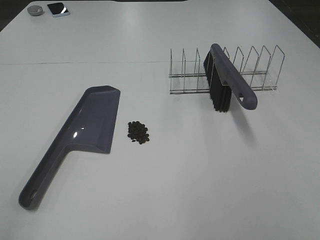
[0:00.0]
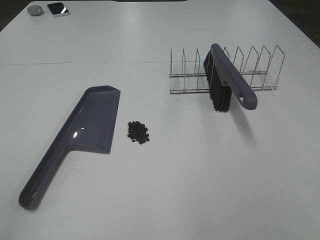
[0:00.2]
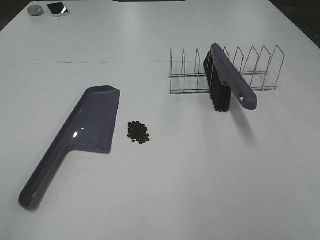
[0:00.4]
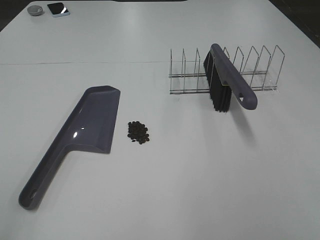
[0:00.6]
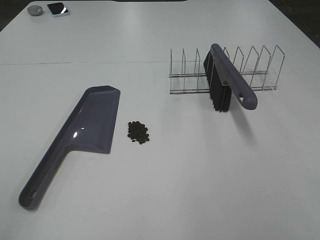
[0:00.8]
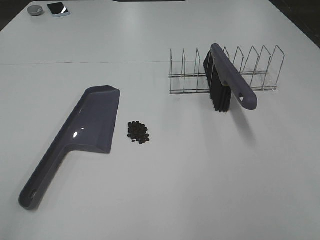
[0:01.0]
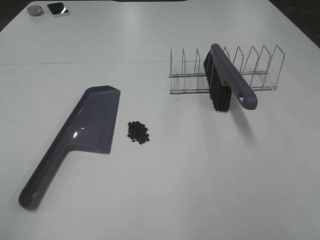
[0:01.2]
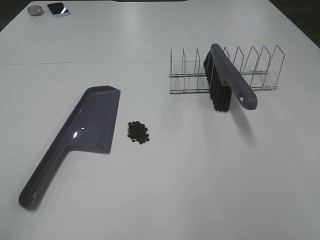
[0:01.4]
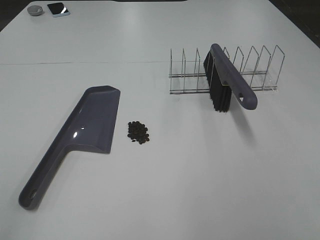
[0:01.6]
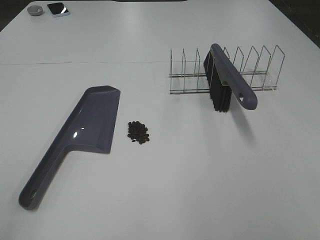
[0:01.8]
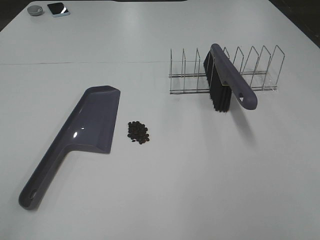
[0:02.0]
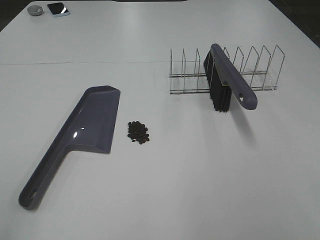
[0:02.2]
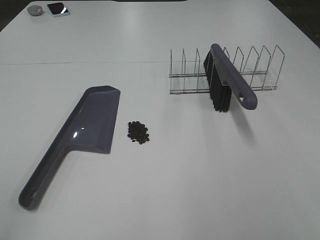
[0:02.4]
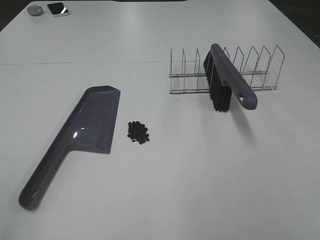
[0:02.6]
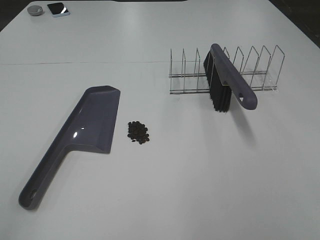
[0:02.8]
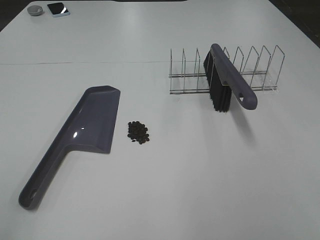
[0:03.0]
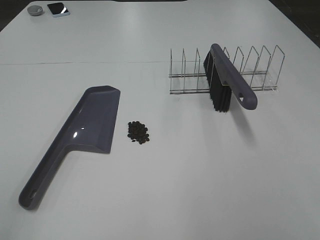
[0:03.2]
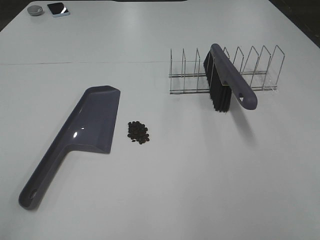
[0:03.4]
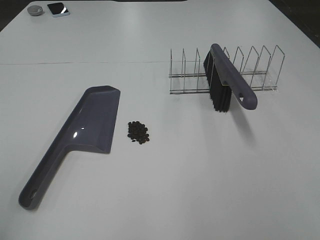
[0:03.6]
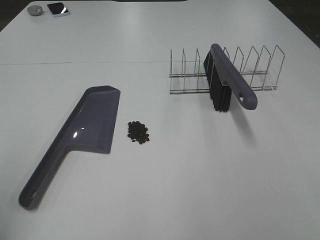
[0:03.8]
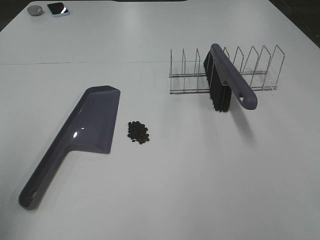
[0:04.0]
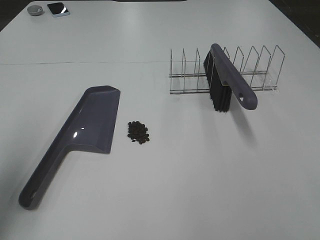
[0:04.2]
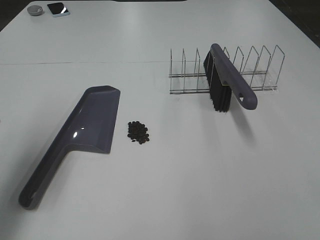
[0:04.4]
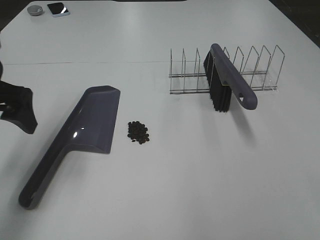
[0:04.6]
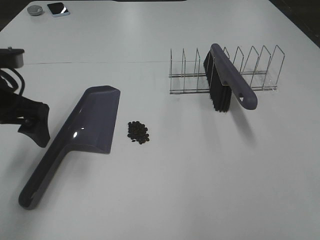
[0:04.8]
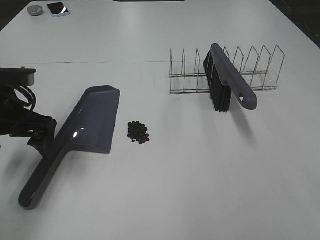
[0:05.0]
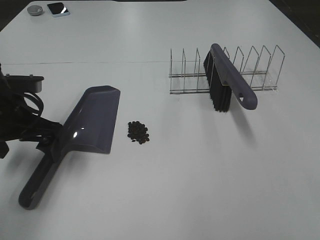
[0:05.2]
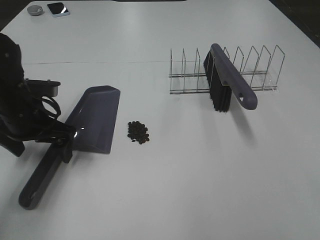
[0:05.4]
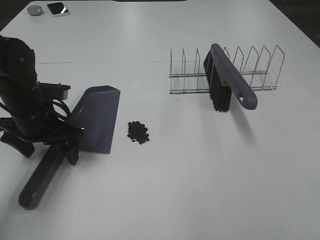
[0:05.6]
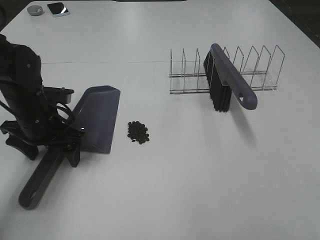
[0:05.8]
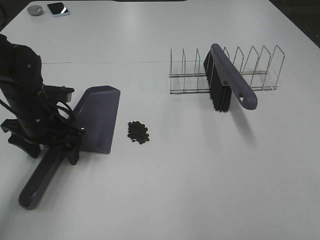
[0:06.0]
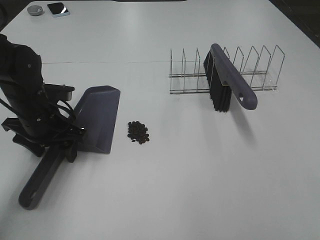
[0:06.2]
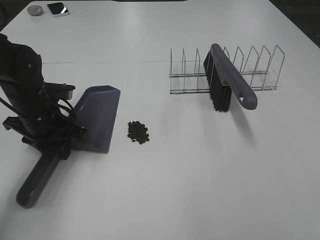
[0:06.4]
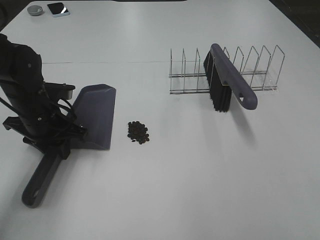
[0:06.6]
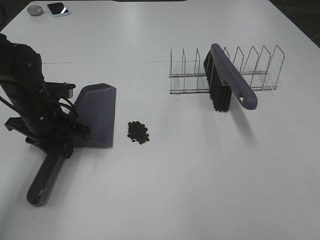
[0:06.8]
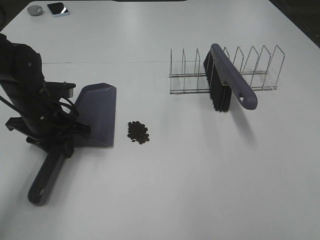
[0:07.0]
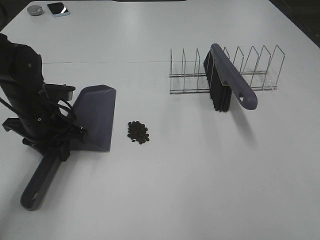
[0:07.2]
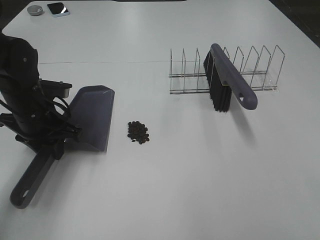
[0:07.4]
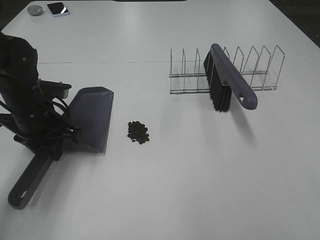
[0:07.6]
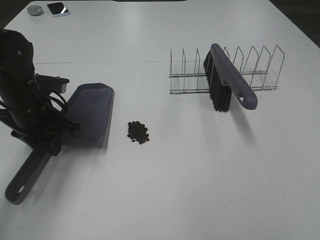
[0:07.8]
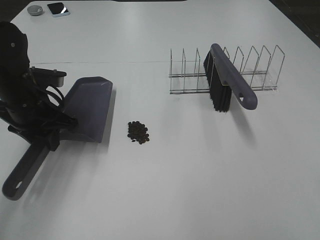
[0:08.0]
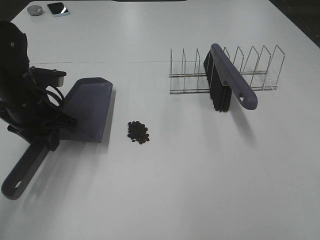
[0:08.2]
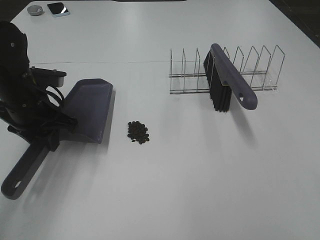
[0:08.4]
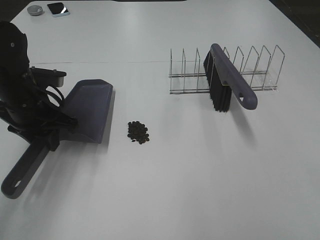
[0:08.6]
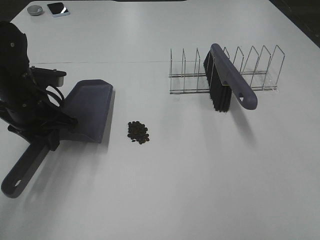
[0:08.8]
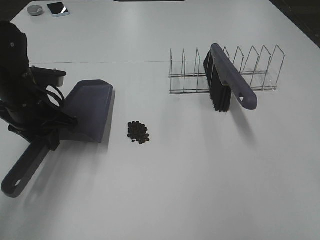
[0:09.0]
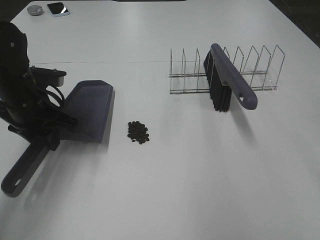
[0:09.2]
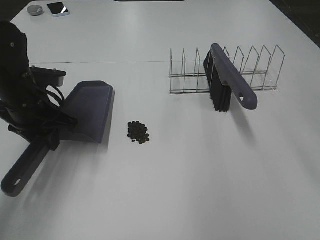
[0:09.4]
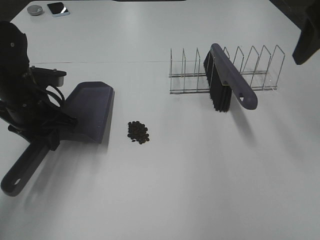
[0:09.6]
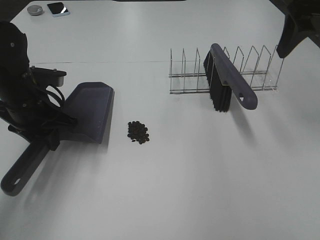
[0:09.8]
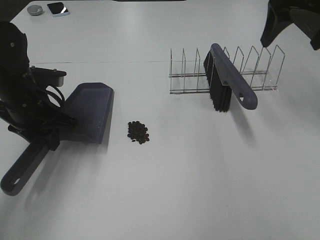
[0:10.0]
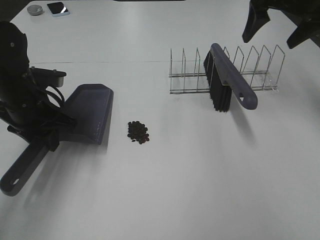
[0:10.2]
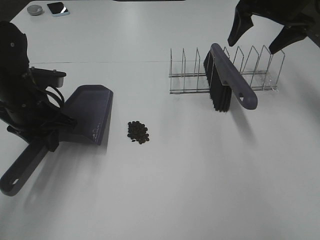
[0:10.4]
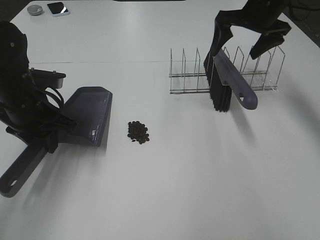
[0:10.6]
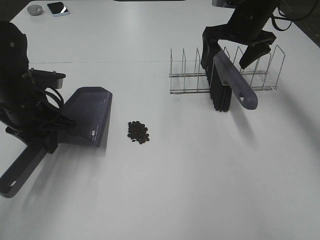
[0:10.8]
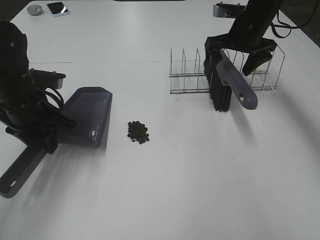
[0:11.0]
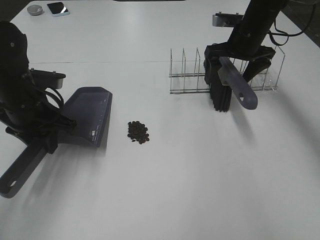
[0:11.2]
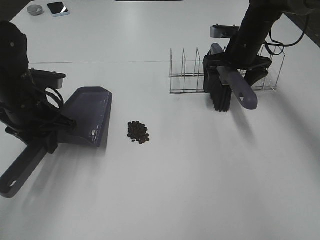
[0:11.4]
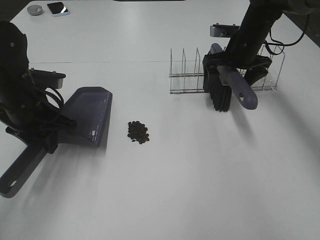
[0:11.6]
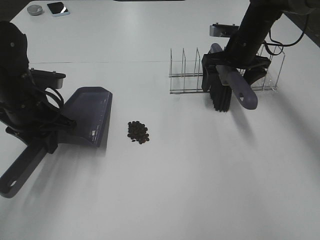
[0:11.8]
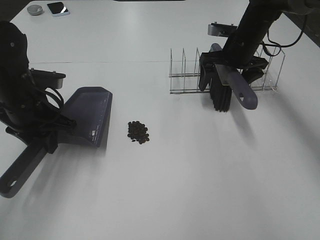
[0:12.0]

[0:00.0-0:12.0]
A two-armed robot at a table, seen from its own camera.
Task of the whole recording: Sweep Coffee Bean.
Step, 0:00.0 to 0:06.8: Left hand: grab the dustpan.
0:00.0 to 0:03.0: Neither gripper changes place.
0:03.0 to 0:04.4: The left gripper shifts about 25 cm forward.
0:04.4 to 0:06.0: The left gripper goes approximately 20 cm downward, forward and to the right.
0:06.0 to 0:07.6: The left gripper closes up.
0:09.0 to 0:10.4: The right gripper shifts approximately 35 cm forward.
0:10.4 to 0:12.0: The right gripper is displaced downward by approximately 10 cm.

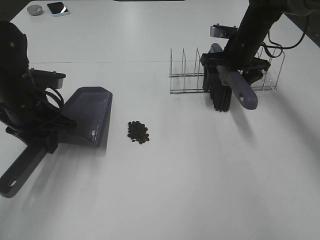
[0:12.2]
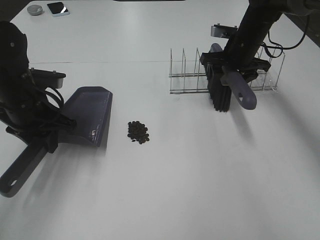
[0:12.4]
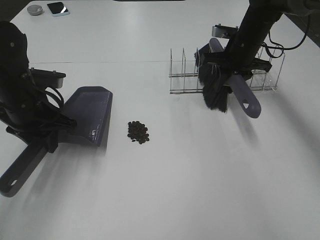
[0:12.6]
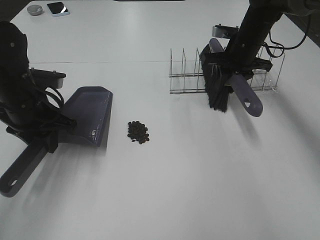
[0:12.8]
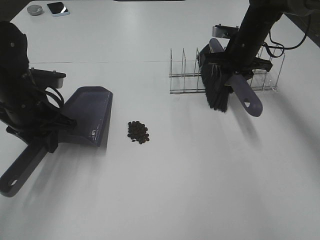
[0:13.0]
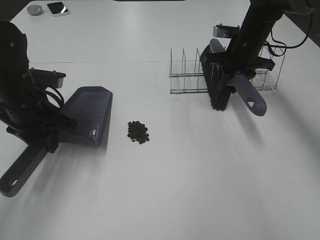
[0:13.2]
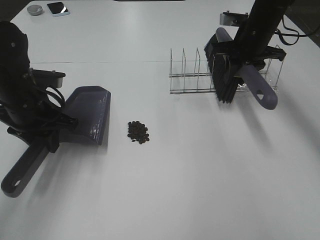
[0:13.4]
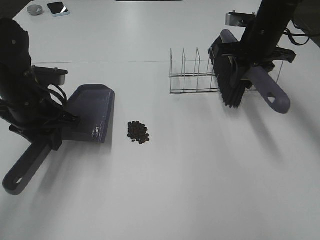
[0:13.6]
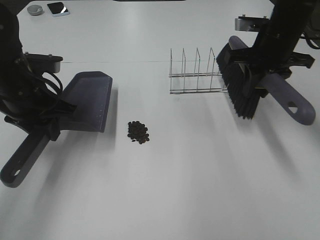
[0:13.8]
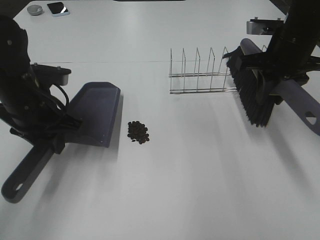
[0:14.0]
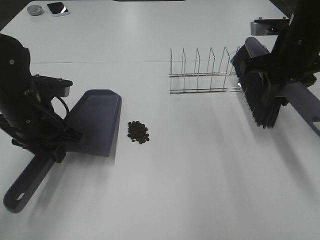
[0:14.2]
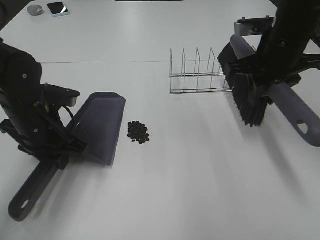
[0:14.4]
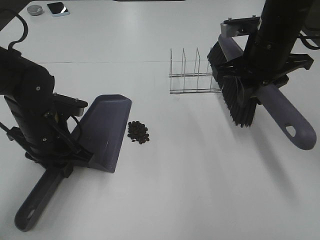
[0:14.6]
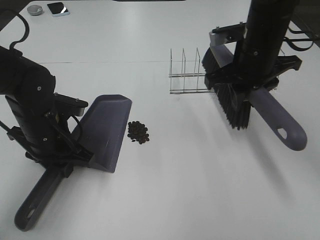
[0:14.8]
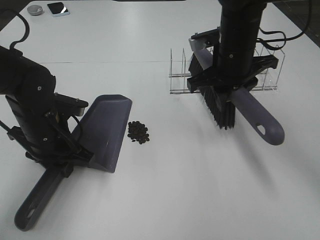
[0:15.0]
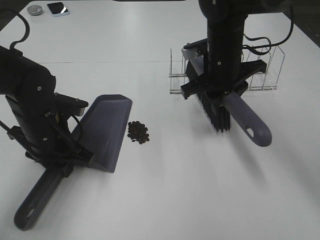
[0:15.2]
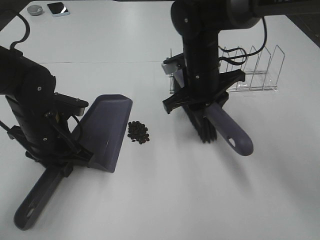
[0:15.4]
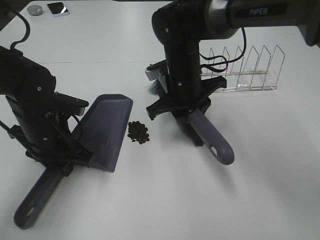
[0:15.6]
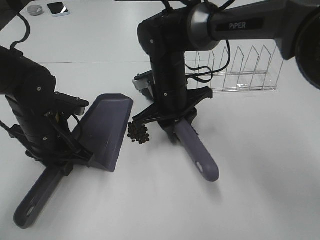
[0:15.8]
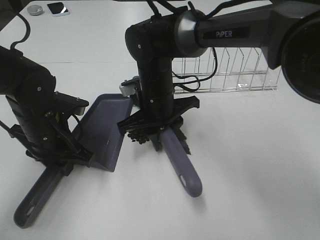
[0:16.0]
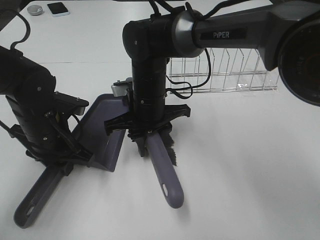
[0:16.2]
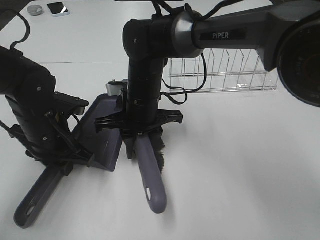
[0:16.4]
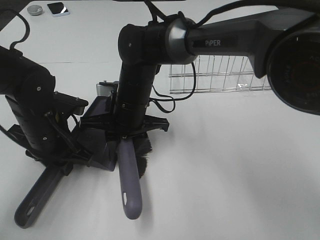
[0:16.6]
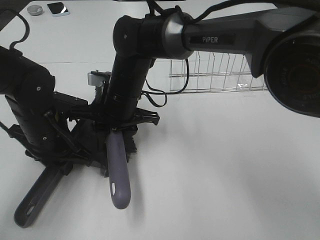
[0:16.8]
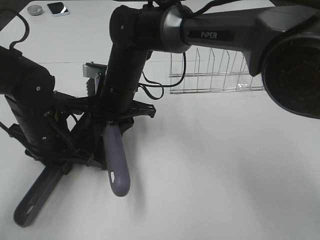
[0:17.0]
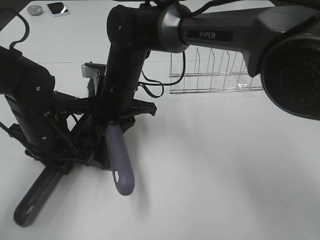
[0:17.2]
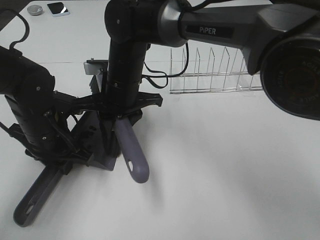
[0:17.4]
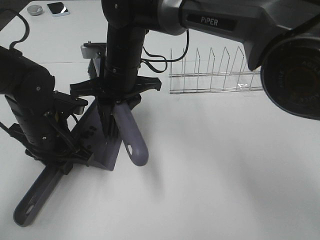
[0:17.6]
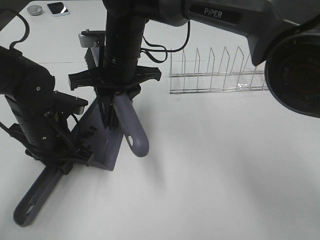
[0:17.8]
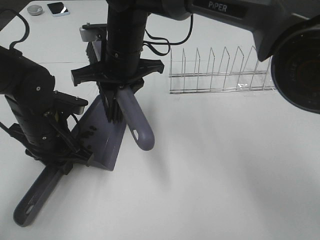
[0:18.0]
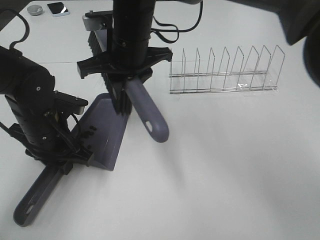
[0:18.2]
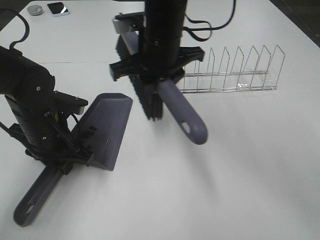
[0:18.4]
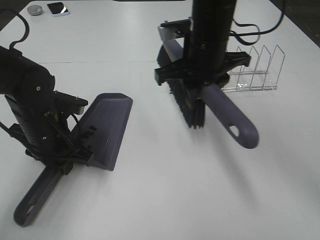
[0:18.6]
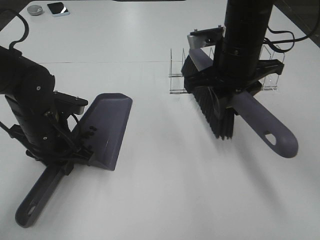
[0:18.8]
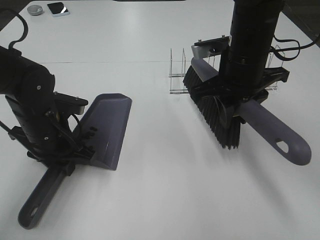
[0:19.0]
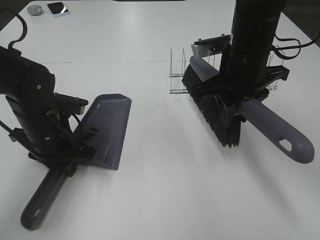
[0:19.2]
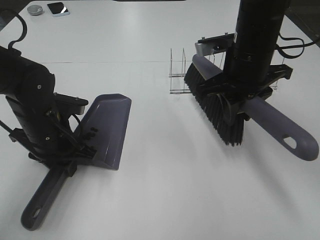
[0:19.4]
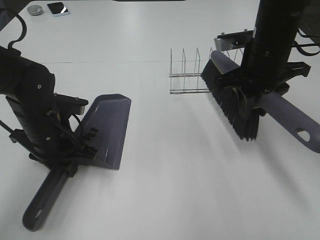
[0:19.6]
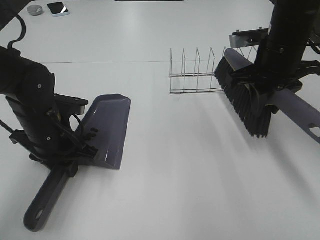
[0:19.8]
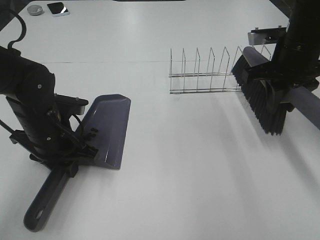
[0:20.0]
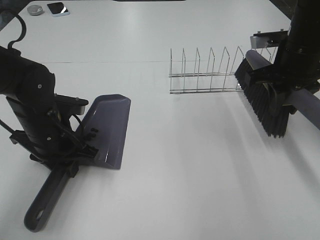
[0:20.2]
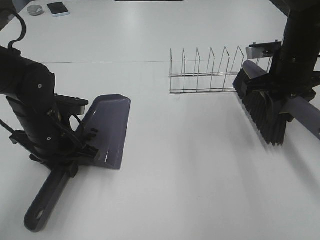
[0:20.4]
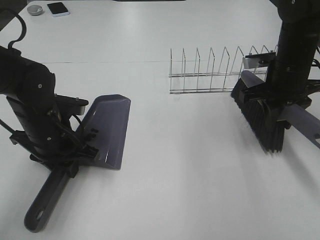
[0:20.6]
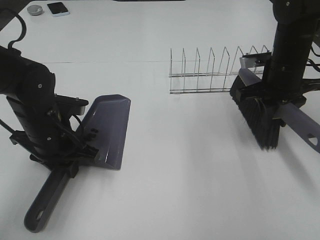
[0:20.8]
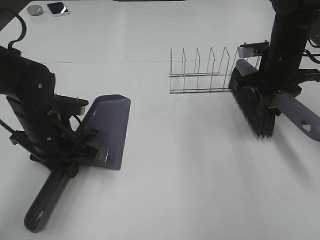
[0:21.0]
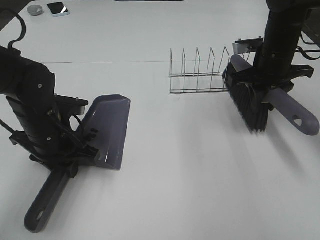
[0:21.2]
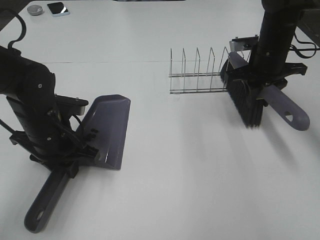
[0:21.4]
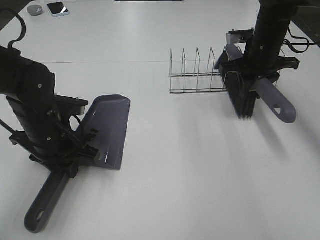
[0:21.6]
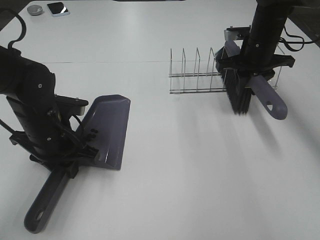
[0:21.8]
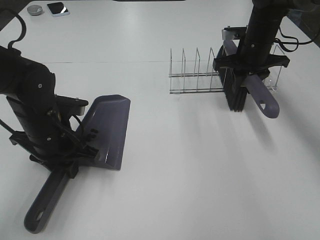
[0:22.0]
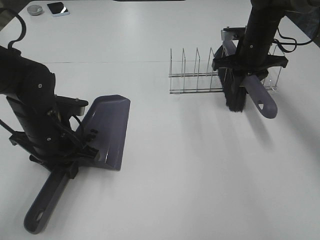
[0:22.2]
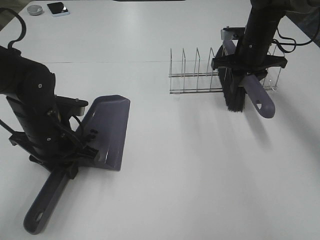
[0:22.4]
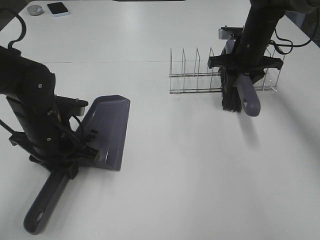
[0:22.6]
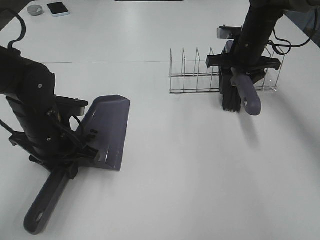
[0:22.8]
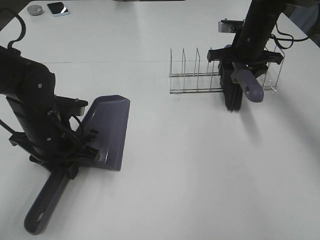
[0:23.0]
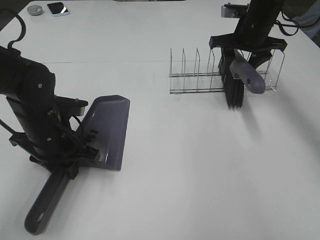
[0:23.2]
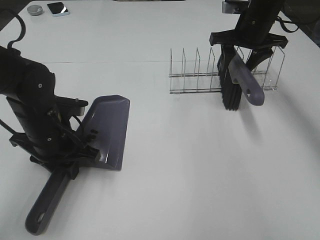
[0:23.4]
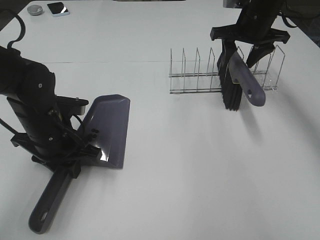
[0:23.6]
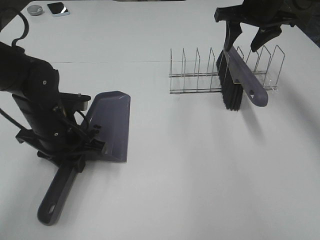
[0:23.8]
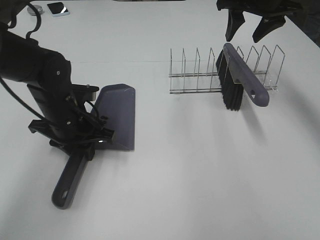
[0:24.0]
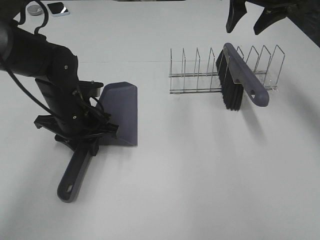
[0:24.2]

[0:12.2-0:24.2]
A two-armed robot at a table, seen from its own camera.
Task of the whole recording: Sweep Coffee Bean.
Step, 0:12.2 to 0:14.6: Left hand: move the dustpan to the left side of the coffee beans.
Step, 0:12.8 to 0:18.2: Right hand:sweep the coffee beans into the dustpan.
Step, 0:18.4 to 0:23.4: Right hand:place the broom on the rack.
0:12.2 to 0:13.8: The right gripper is displaced backward and upward by approximately 10 cm, and closes its fingers.
0:13.8 to 0:15.2: The right gripper shifts roughly 10 cm to the left. Meanwhile the left gripper moves downward, roughly 5 cm.
0:15.2 to 0:16.6: The right gripper shifts some 15 cm to the left.
0:16.6 to 0:18.2: The right gripper moves upward, roughly 10 cm.
0:18.2 to 0:19.8: The right gripper is displaced to the right by approximately 25 cm.
0:19.8 to 0:21.2: The right gripper goes about 5 cm forward.
0:21.2 to 0:22.6: The right gripper goes some 5 cm forward.
0:22.6 to 0:24.2: The right gripper goes approximately 15 cm upward. The left gripper changes place by some 5 cm.
